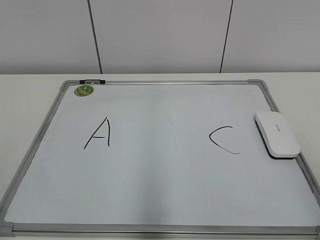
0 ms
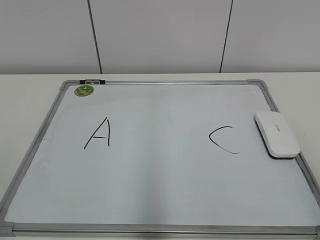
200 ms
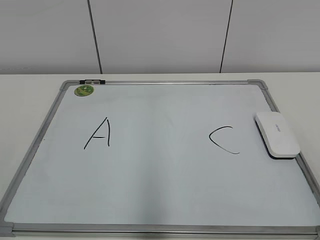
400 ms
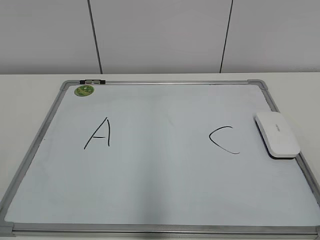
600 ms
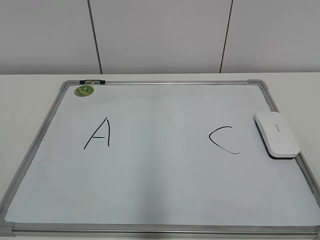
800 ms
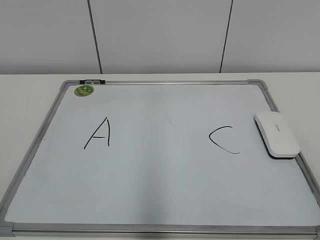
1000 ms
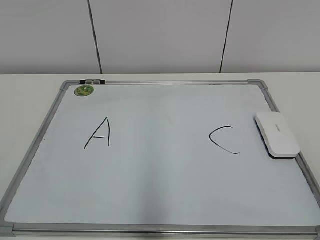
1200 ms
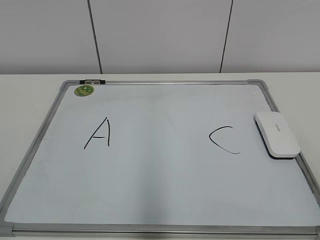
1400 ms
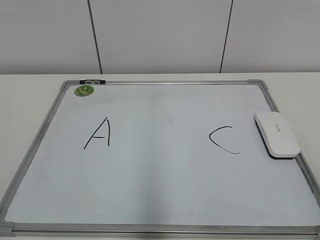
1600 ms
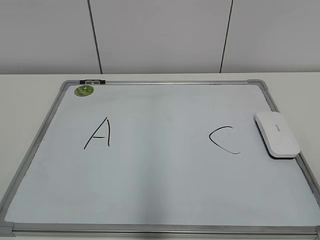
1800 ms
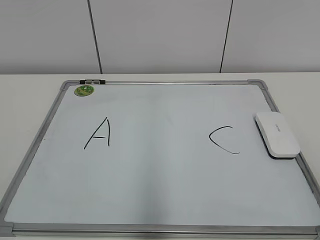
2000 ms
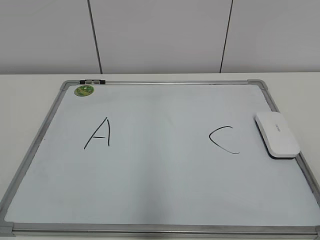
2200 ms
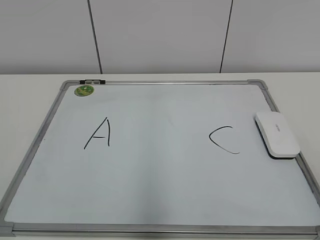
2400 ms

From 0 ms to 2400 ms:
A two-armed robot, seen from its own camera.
Task of the whole recording: pick up the eraser on the blackboard and erase the letter "B".
From 1200 ms to 2400 ms: Both grippers stay put.

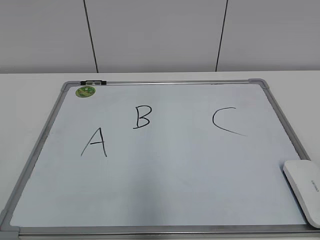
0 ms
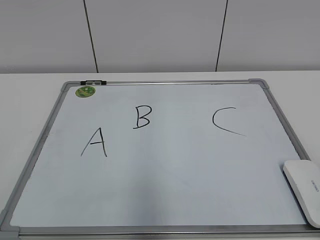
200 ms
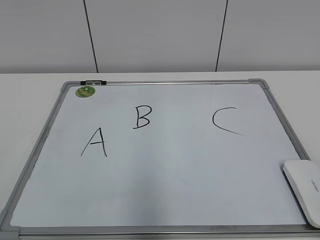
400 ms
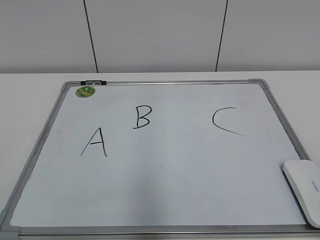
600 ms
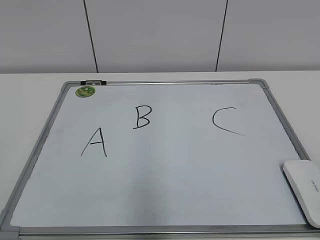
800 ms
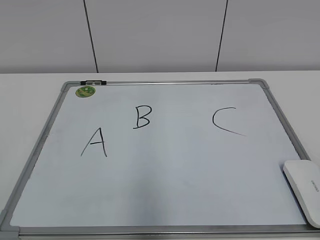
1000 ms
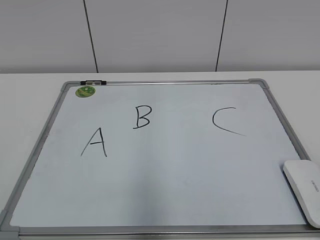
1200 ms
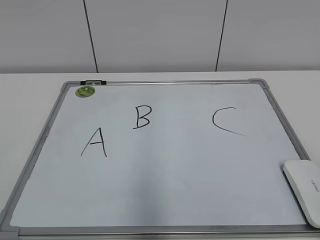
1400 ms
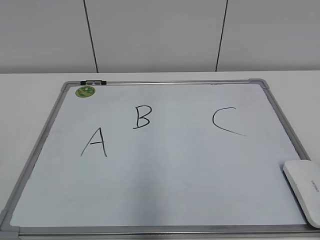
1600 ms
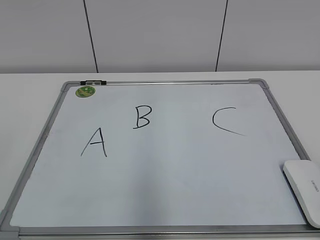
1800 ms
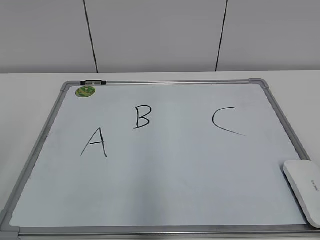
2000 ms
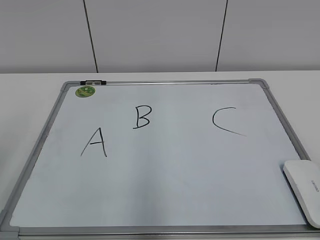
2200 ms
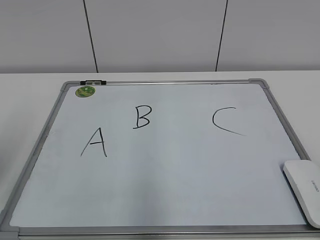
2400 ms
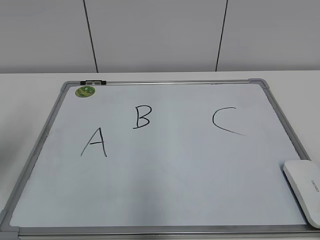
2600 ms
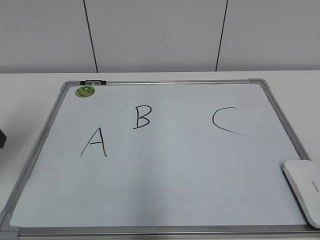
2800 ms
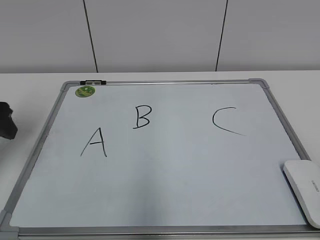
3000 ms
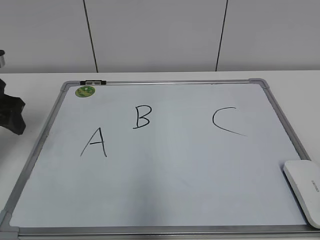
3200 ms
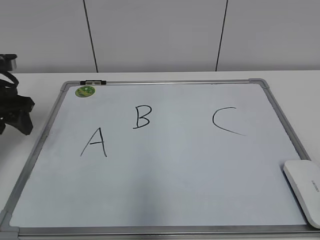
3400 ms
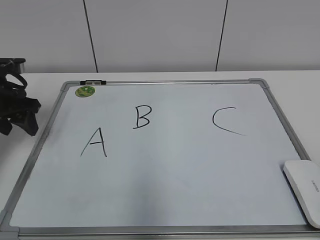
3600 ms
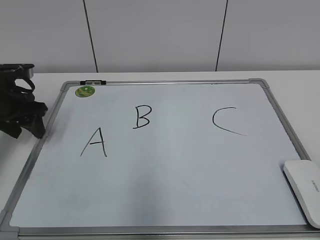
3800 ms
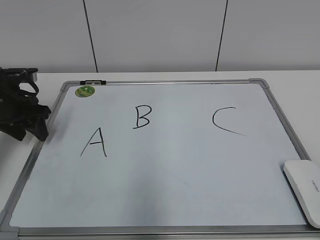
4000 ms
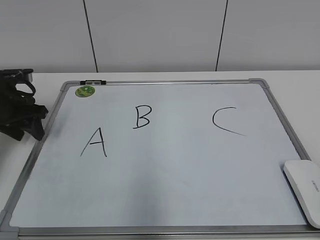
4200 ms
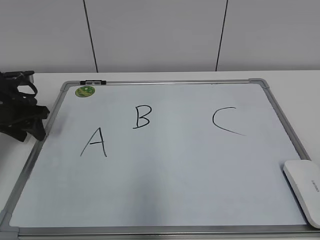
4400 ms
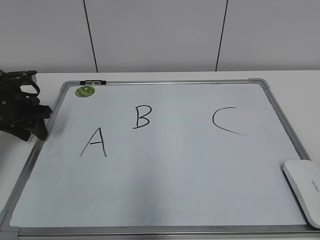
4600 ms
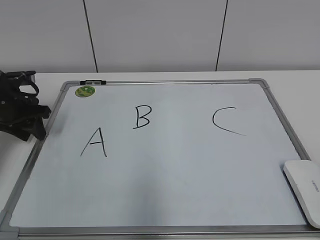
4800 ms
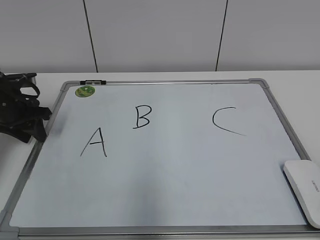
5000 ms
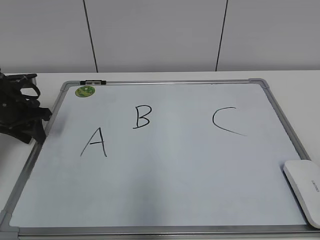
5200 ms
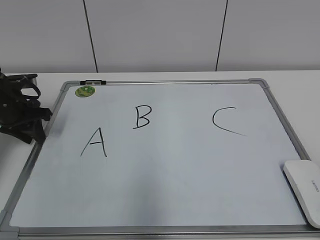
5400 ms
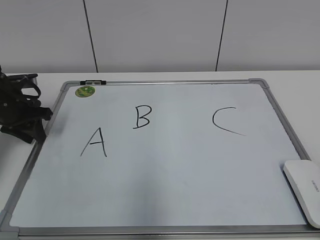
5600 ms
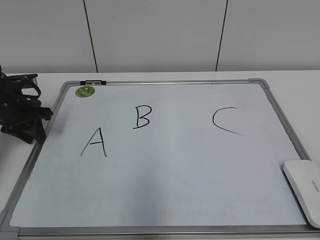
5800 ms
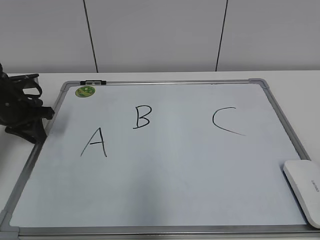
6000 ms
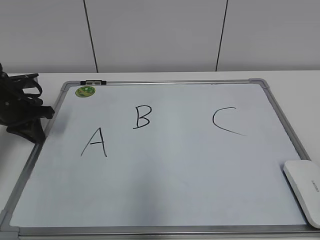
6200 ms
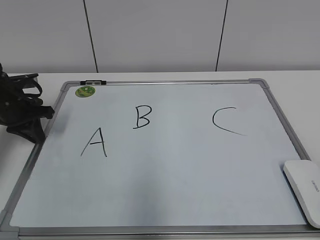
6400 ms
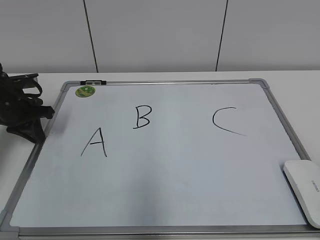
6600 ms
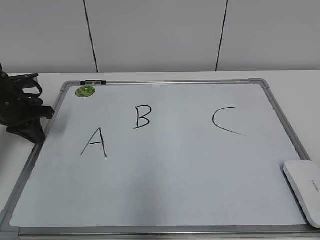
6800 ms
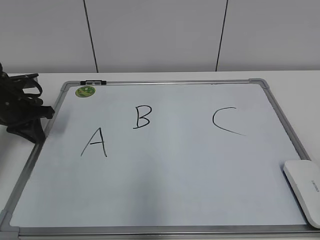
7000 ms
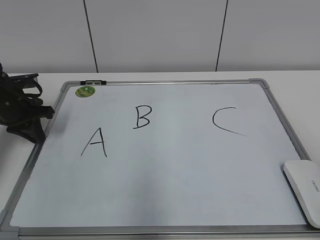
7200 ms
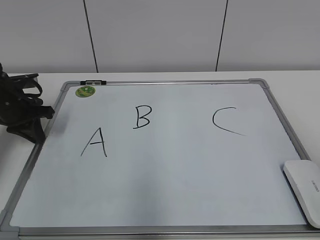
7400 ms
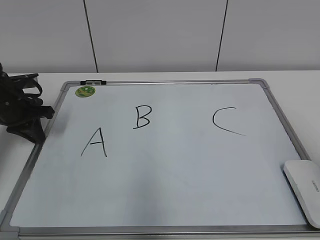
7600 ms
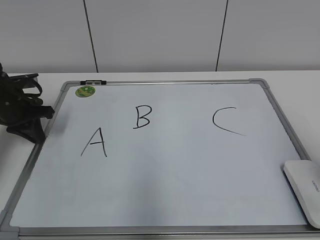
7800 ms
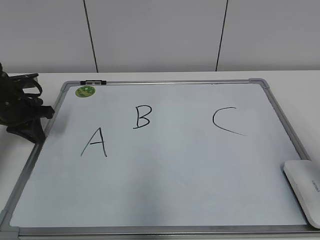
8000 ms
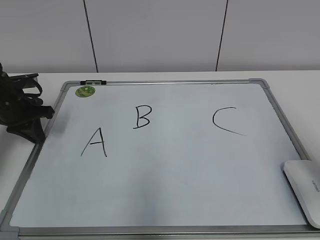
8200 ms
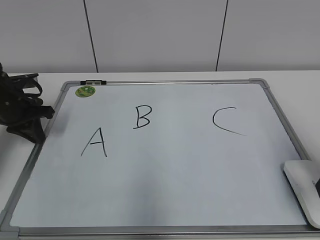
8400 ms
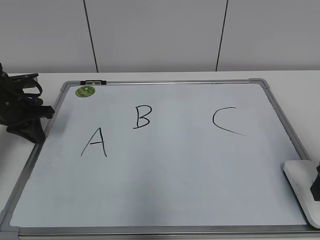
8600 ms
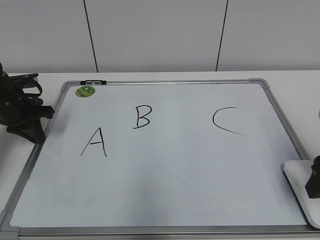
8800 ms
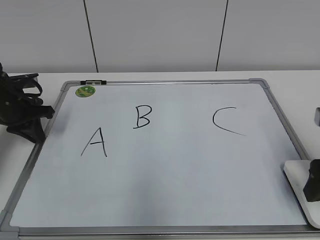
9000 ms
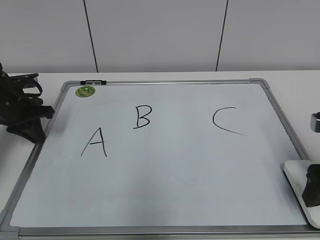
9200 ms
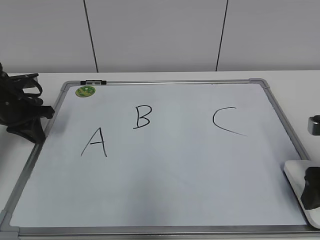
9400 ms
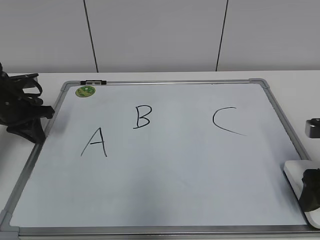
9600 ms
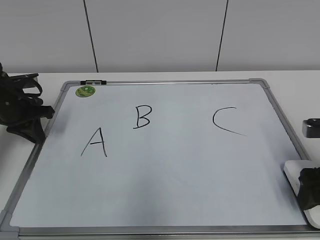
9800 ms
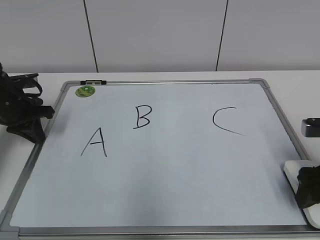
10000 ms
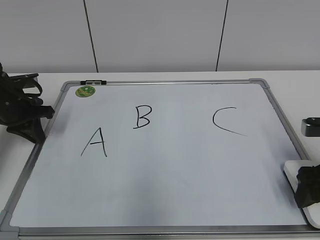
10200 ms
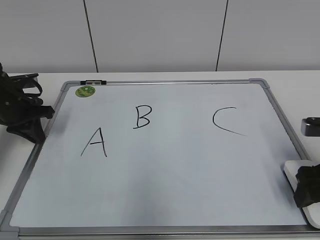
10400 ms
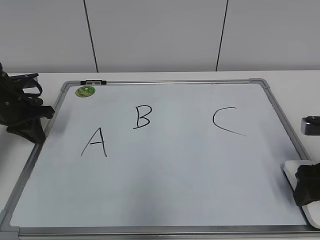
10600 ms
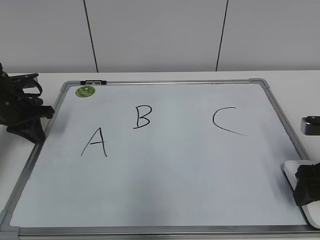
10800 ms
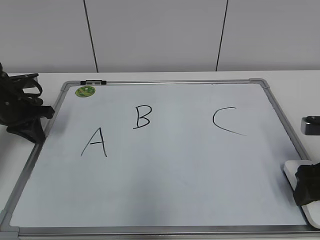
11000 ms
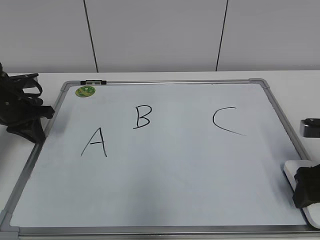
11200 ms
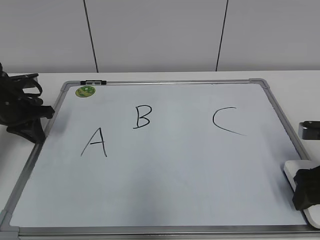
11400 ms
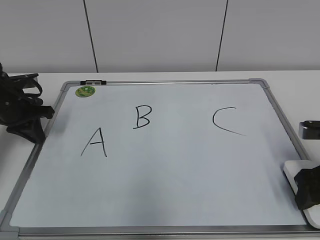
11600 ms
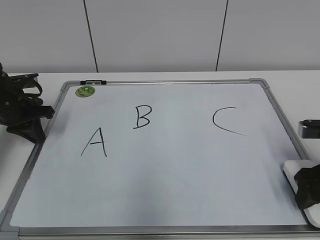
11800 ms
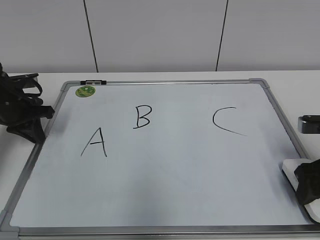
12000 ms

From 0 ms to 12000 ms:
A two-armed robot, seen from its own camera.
Task of the whole recording: pick up the eraser on the blackboard and erase the letter "B".
Step, from 0 ms to 6400 ms: Hold the drawing board steady with your left hand.
From 1600 ms to 3000 ms: The left gripper heads forward, covering approximately 30 cm.
From 3000 ms to 4400 ms: The left gripper shifts roughly 15 cm forward and downward.
From 4400 ms to 6000 ms: The grippers stay close to where they were, moving slightly.
From 7600 ms to 9000 ms: The right gripper goes some 15 cm forward and downward, and opens.
From 9000 ms to 10400 ms: The grippers make only small movements.
From 10400 ms to 12000 ms: The right gripper closes up.

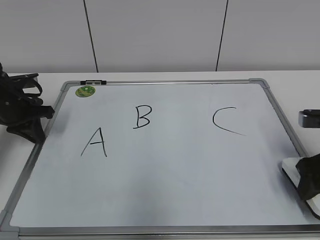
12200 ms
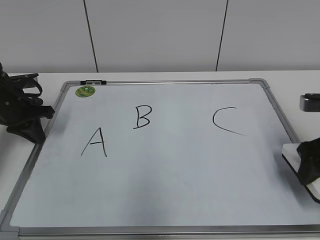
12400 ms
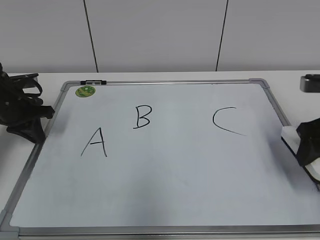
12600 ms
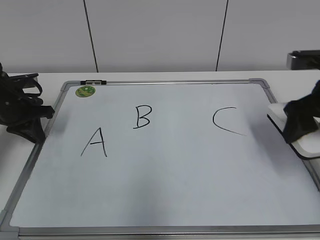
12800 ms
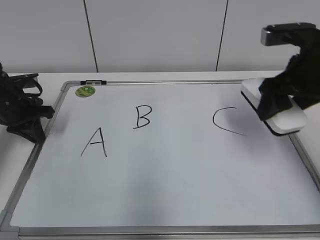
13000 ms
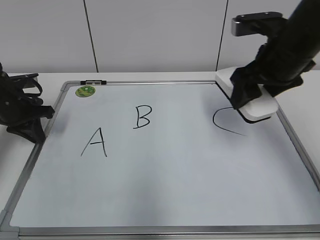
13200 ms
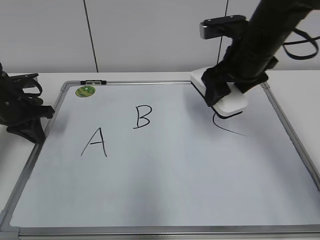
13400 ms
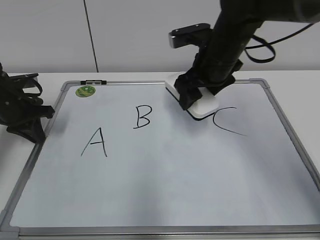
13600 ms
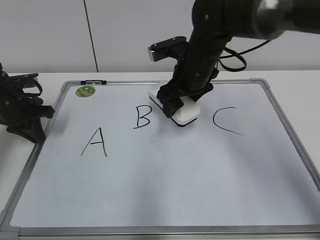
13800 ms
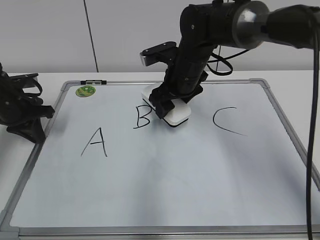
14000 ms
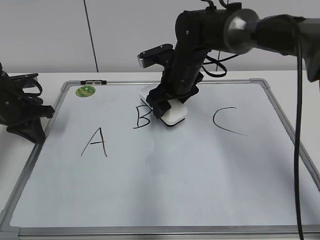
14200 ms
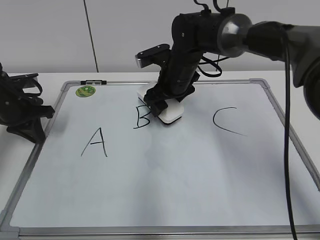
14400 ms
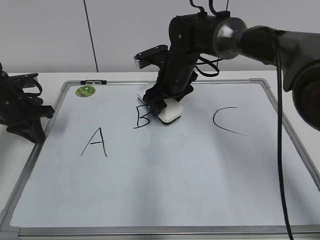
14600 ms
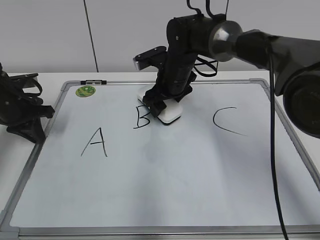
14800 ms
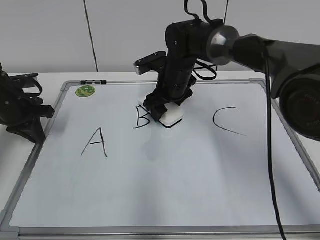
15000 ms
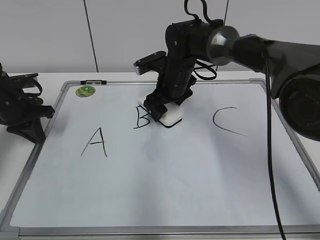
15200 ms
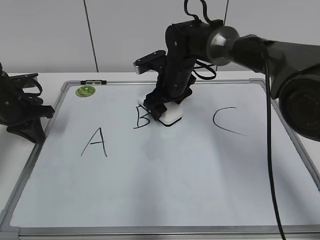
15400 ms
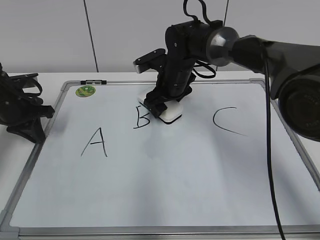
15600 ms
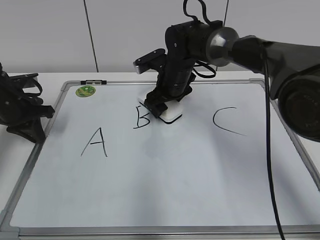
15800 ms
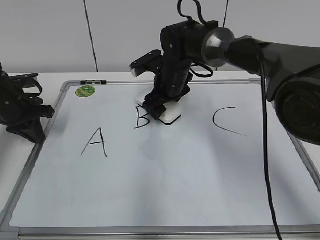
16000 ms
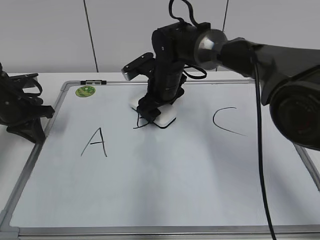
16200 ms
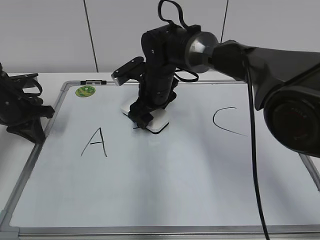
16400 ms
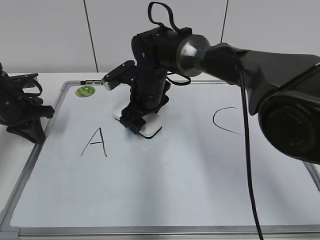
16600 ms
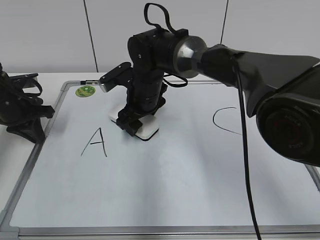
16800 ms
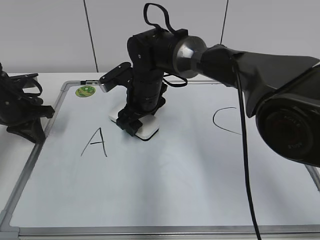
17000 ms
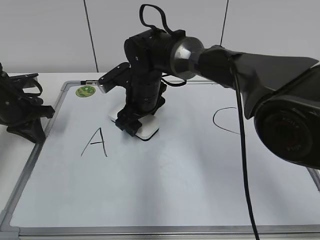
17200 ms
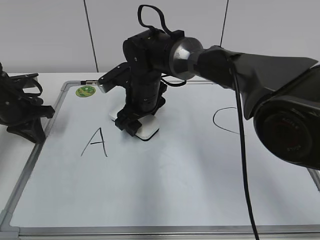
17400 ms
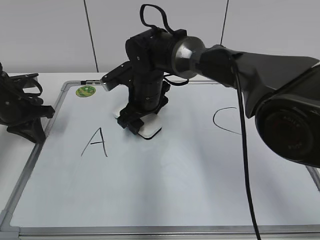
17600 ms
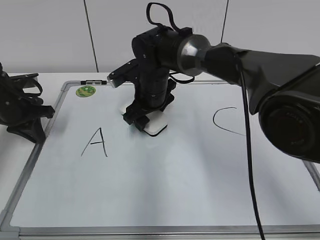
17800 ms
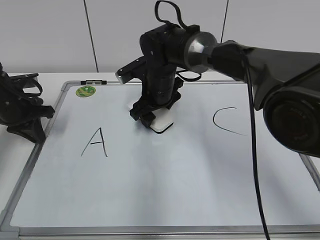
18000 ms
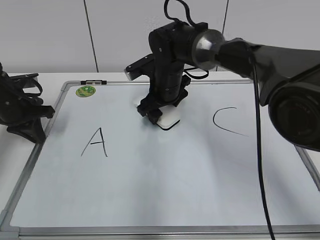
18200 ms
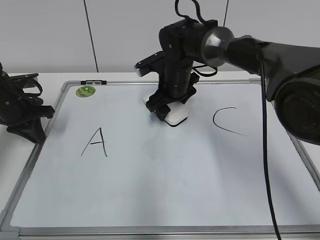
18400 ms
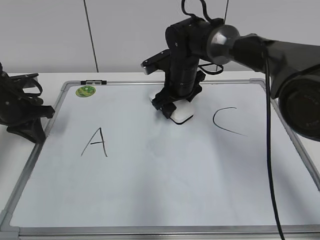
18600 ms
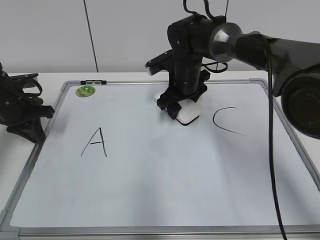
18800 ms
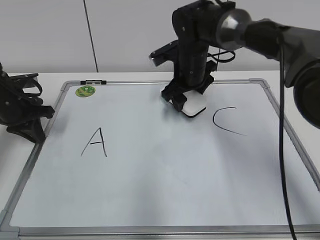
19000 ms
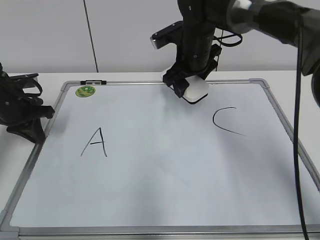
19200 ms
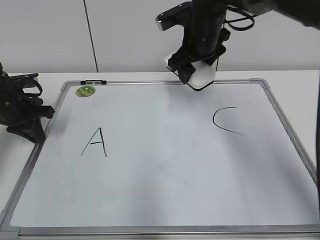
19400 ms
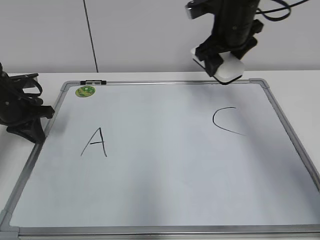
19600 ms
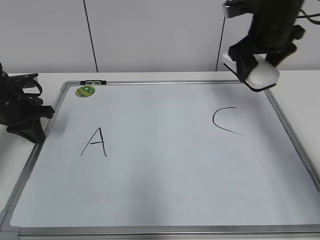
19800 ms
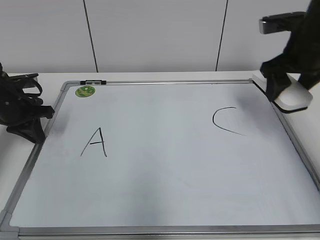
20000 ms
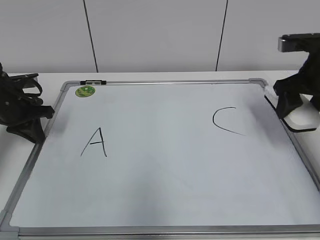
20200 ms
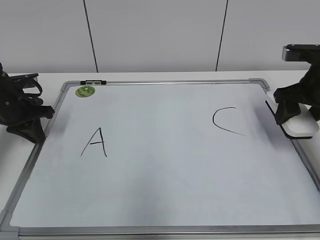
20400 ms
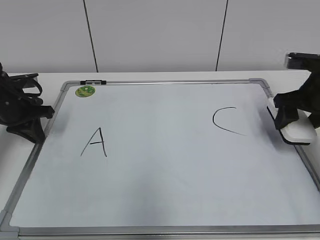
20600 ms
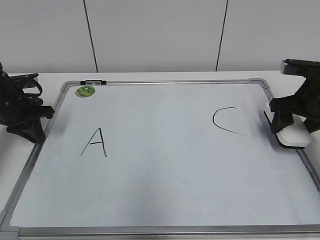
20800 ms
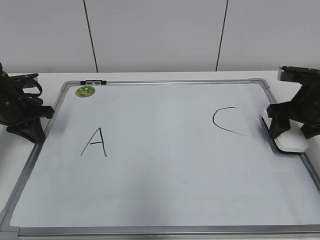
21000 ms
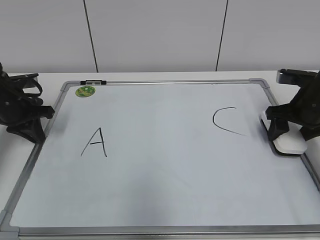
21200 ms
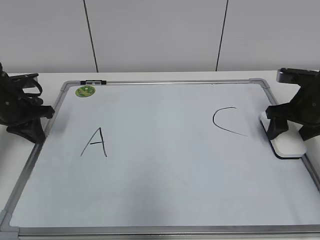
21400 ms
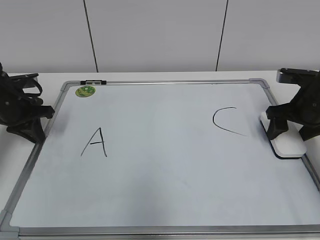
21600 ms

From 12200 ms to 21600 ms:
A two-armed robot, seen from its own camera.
Task of the whole recording: pick up the eraser on the blackboard and erase the letter "B".
Step, from 12200 ms to 17800 ms: Erase the letter B with your right hand.
From 12200 ms to 13800 ms: The right gripper shifts some 25 cm to the left and forward.
From 13800 ms to 15400 ms: The right gripper moves downward and forward, approximately 10 cm.
From 15400 ms to 17000 ms: The right gripper goes some 5 cm to the left.
From 17000 ms to 18400 ms: The right gripper goes some 5 cm to the right.
From 18400 ms to 20000 ms: The right gripper shifts approximately 20 cm to the right and upward.
From 20000 ms to 21600 ms: The right gripper heads downward and to the right, covering some 15 cm, and opens.
